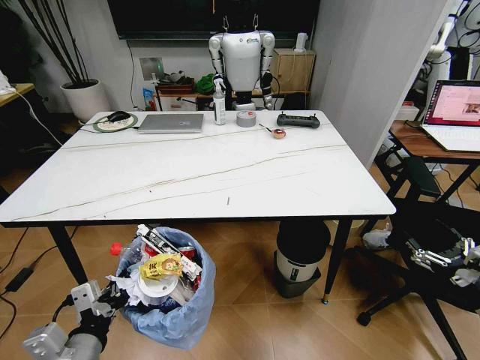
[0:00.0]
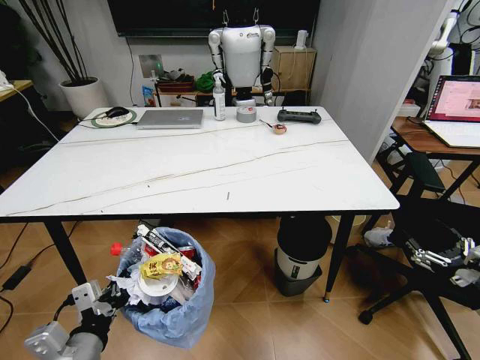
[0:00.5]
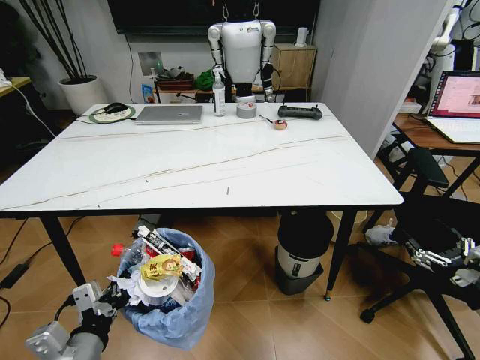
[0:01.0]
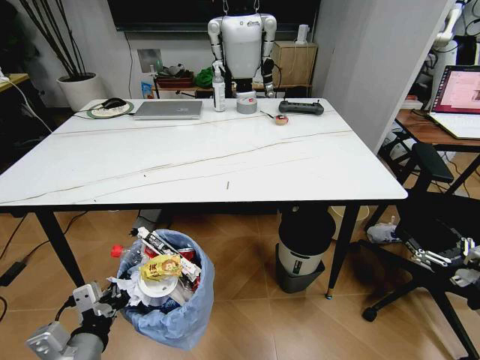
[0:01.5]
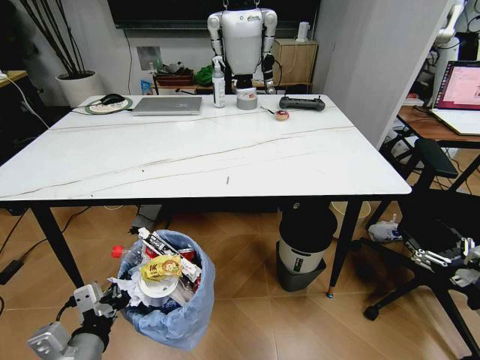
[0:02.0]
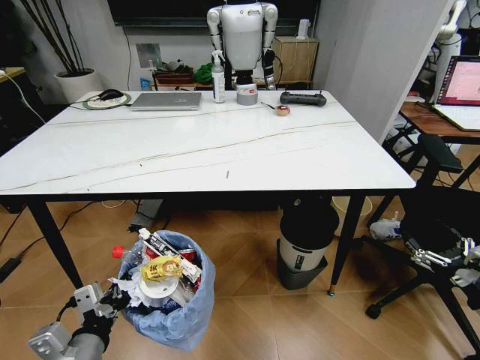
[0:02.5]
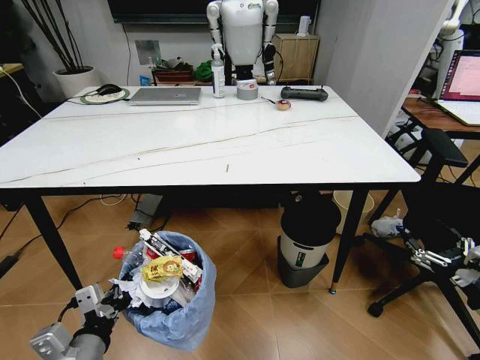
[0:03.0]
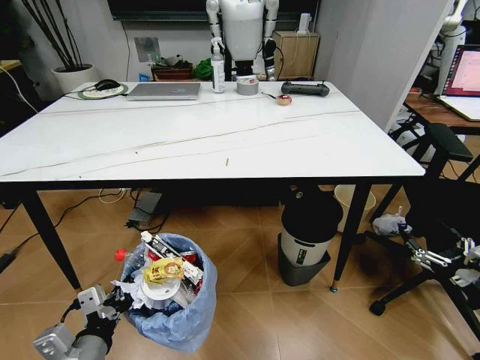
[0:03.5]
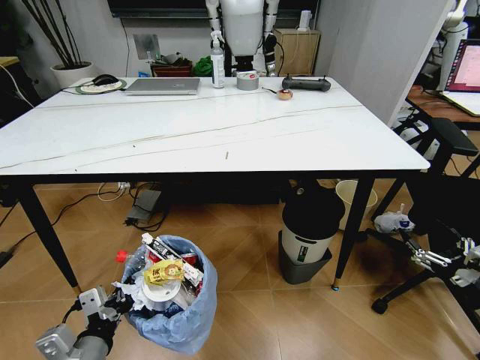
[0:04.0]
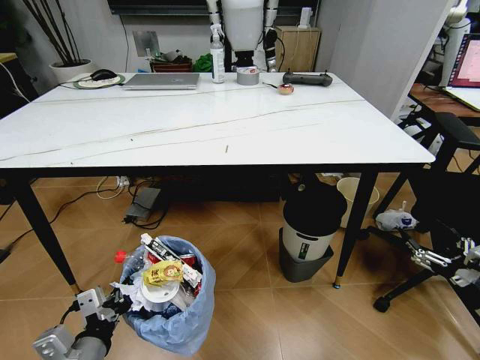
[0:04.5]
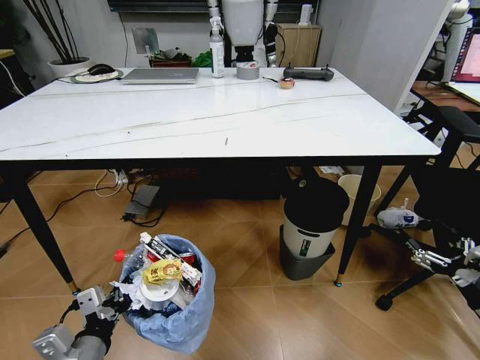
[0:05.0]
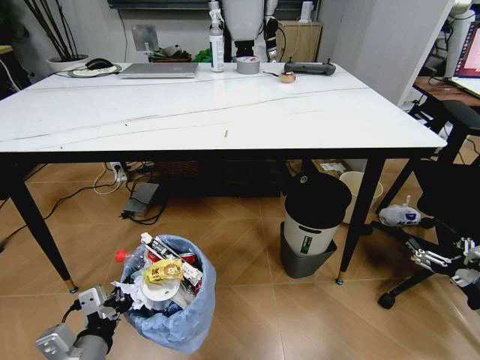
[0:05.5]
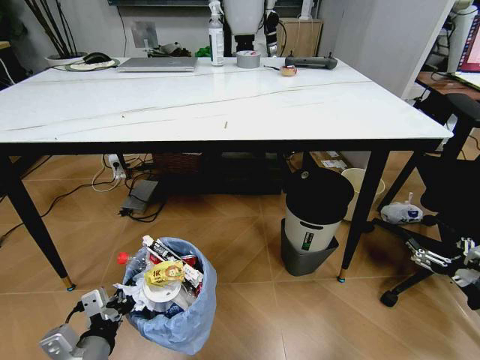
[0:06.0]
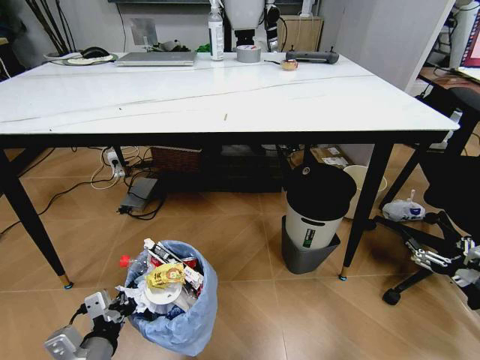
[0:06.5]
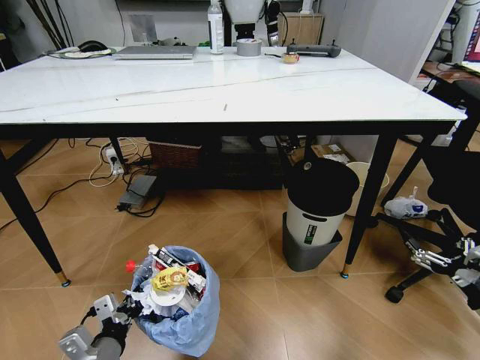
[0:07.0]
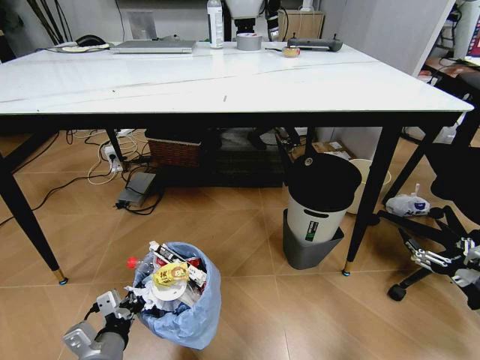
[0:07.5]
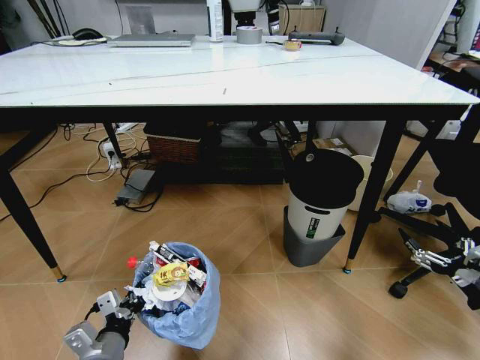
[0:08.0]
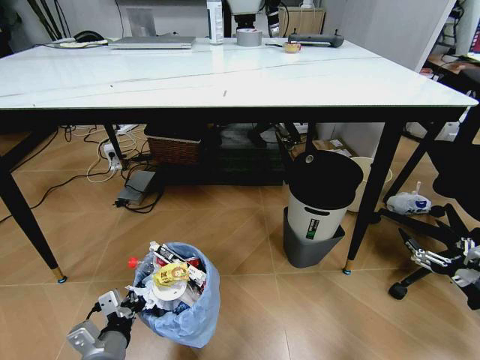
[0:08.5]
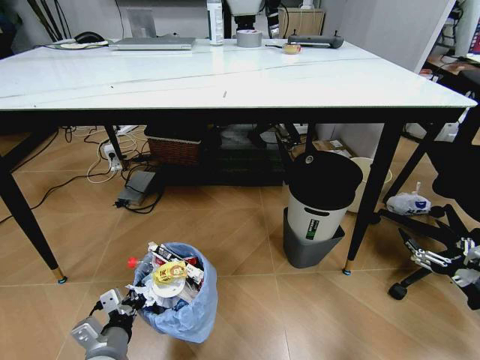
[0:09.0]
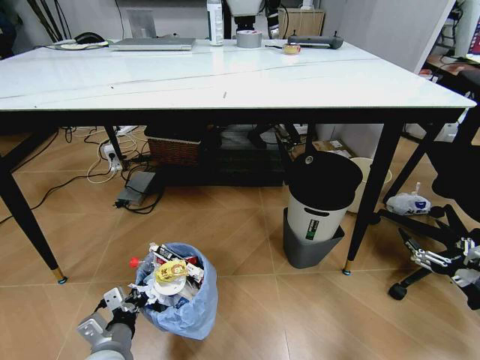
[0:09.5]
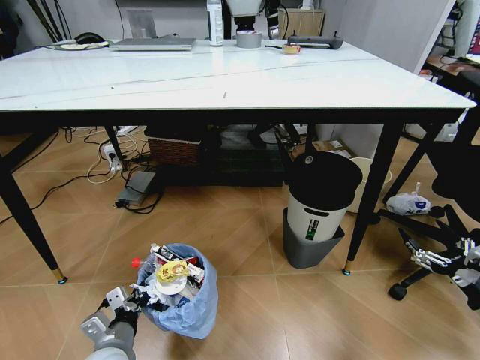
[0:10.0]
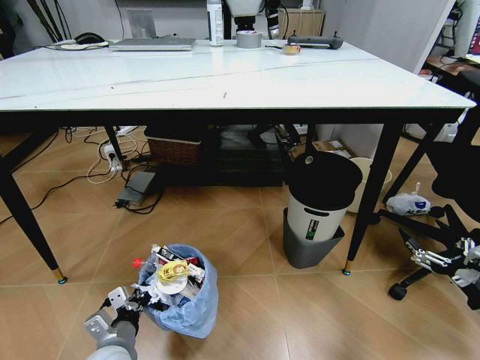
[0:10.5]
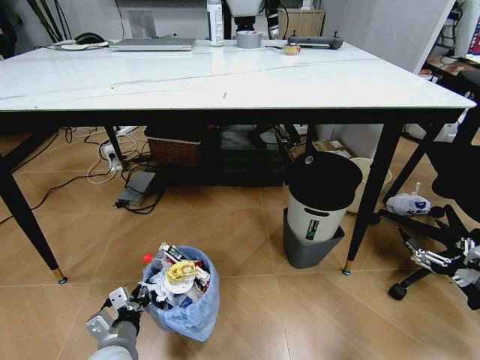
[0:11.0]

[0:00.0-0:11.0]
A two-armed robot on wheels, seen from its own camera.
Task of the whole recording: Pick up the trash bin and place the trash from the table into it.
0:05.5 to 0:07.5: The left gripper is displaced downward by approximately 5 cm.
0:07.5 to 0:09.0: The grippers make only small movements.
0:09.0 to 0:11.0: The grippers stay close to where they were, moving slightly.

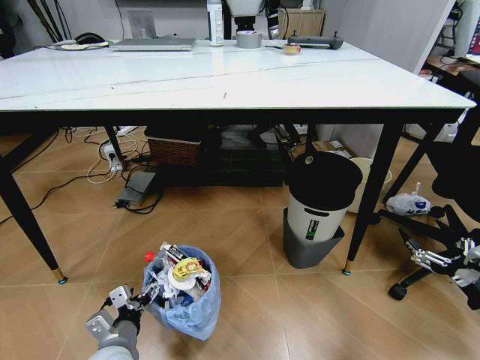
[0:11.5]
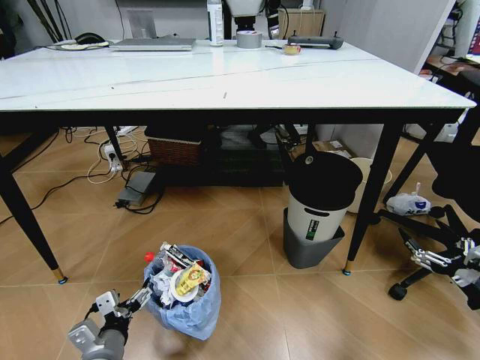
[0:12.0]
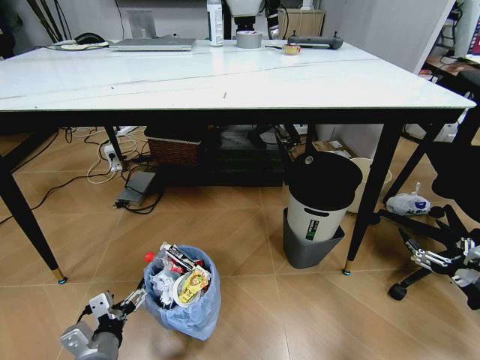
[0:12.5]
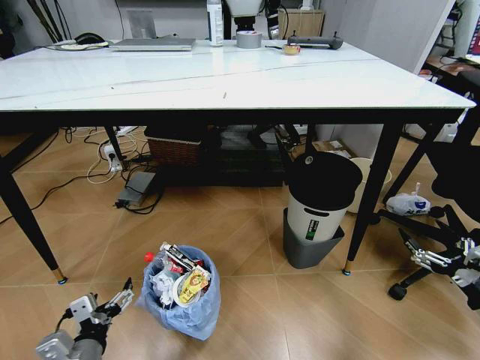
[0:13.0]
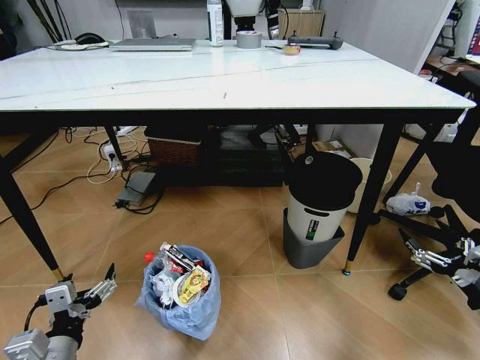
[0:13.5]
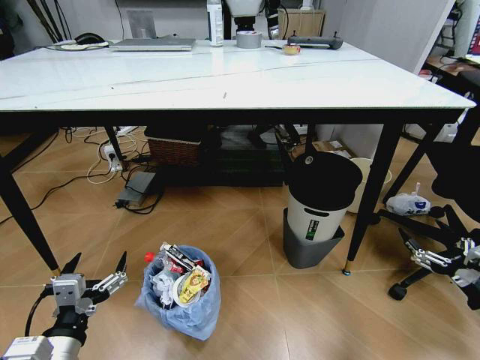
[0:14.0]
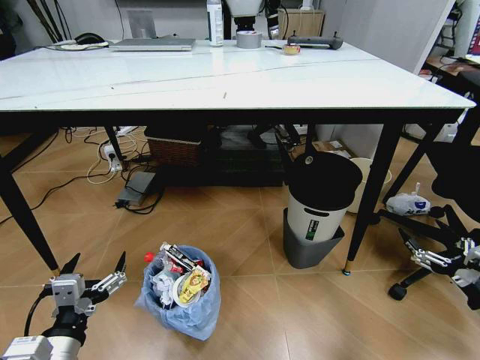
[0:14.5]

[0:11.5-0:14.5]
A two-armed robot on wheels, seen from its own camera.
Task of the whole recording: Pick up the trash bin and place the trash from the table into it.
0:11.5 to 0:13.0: The left gripper is displaced upward and backward by about 10 cm.
0:13.0 to 0:14.5: The left gripper shifts some 5 cm upward.

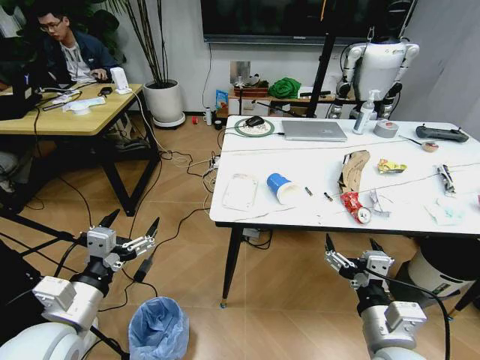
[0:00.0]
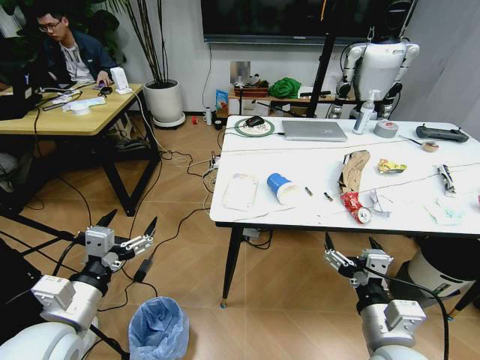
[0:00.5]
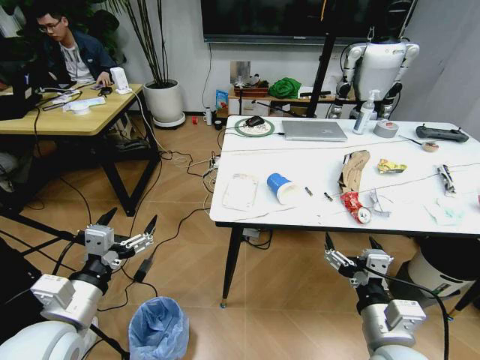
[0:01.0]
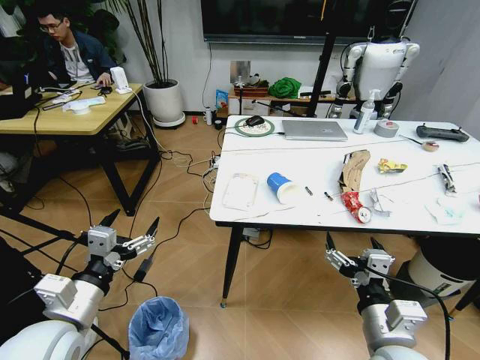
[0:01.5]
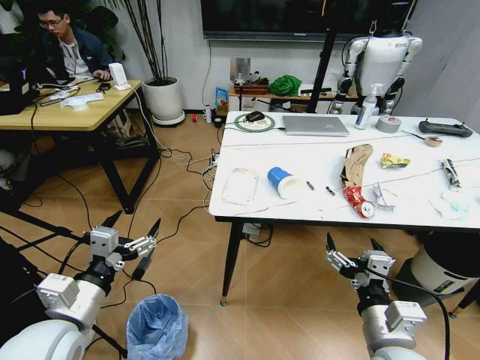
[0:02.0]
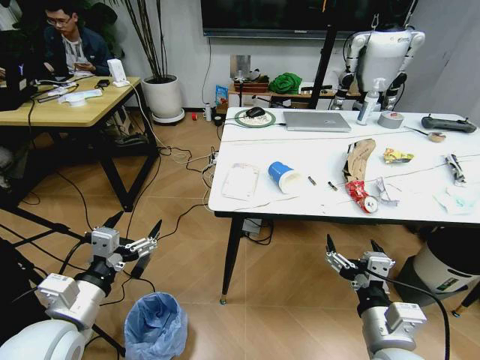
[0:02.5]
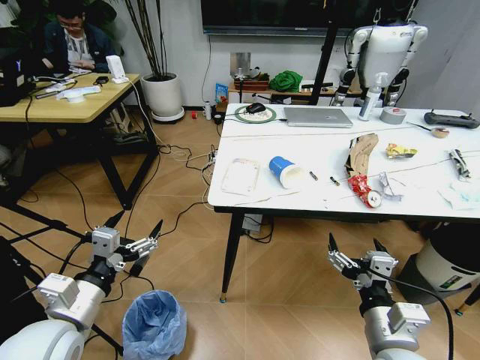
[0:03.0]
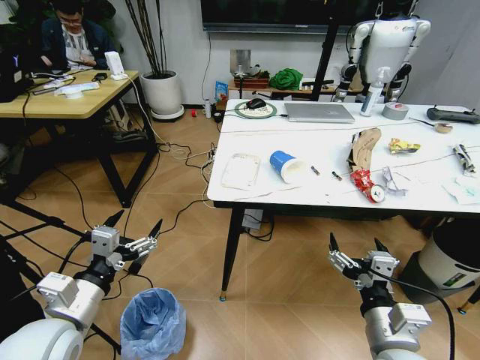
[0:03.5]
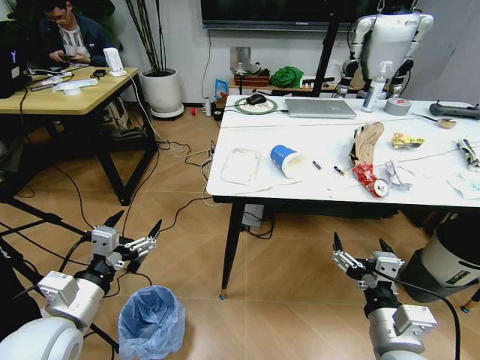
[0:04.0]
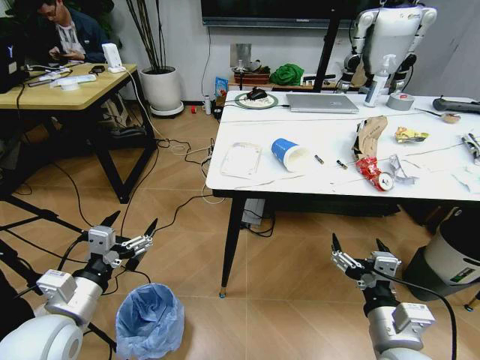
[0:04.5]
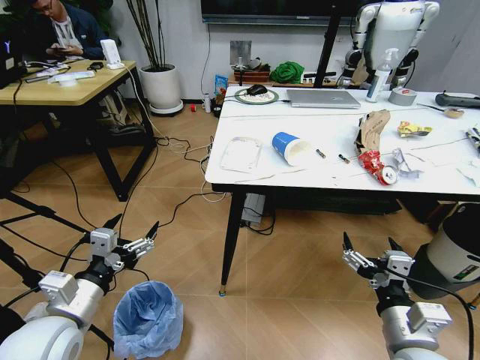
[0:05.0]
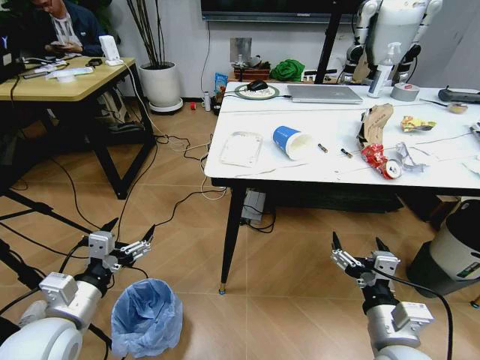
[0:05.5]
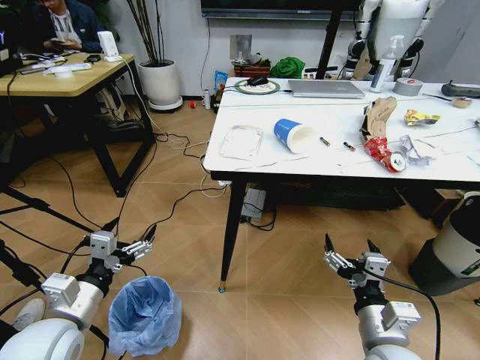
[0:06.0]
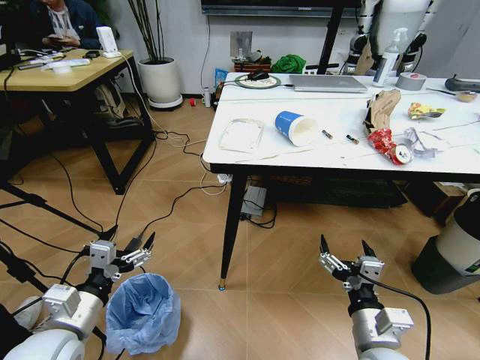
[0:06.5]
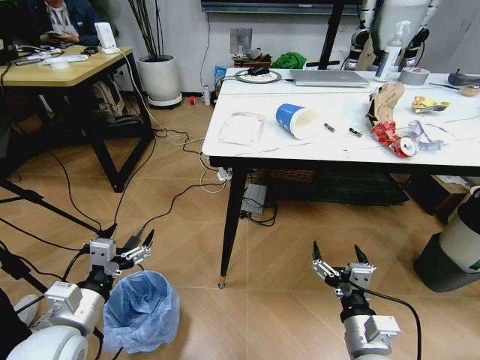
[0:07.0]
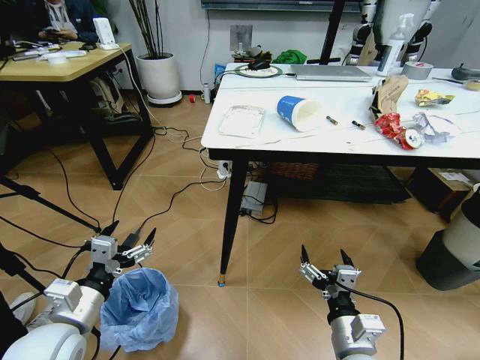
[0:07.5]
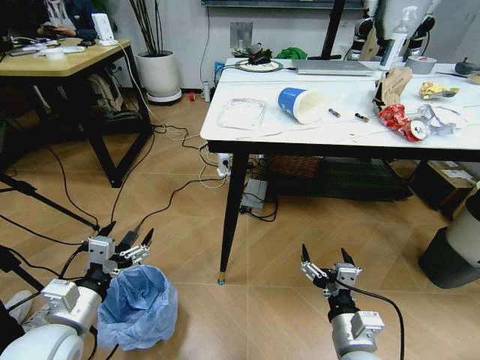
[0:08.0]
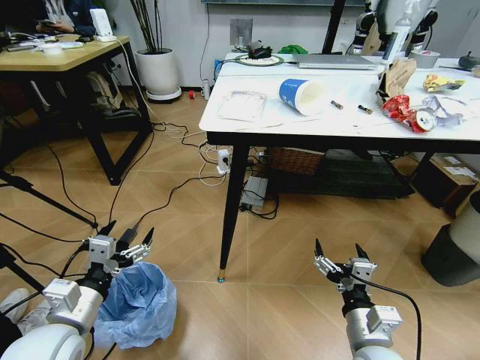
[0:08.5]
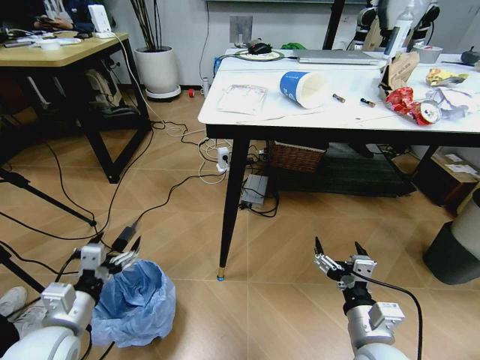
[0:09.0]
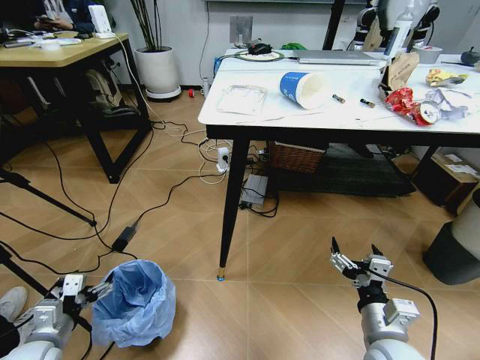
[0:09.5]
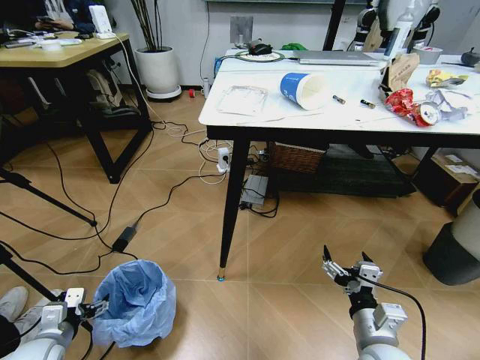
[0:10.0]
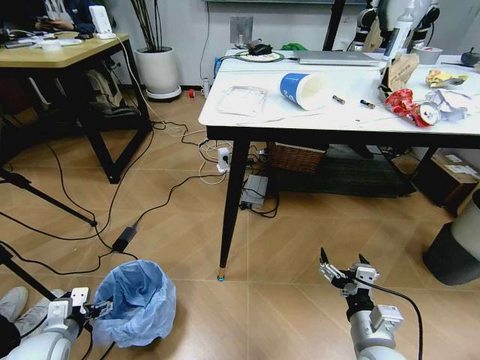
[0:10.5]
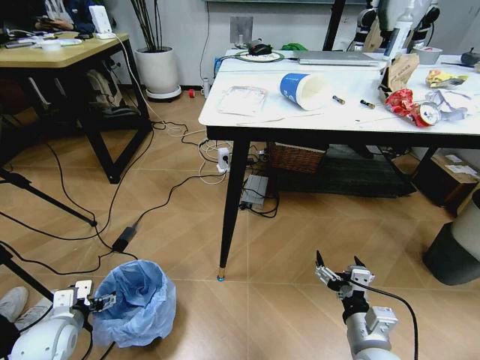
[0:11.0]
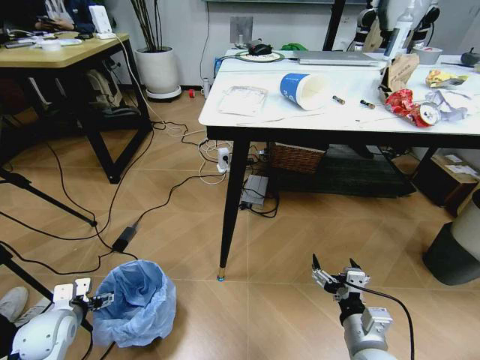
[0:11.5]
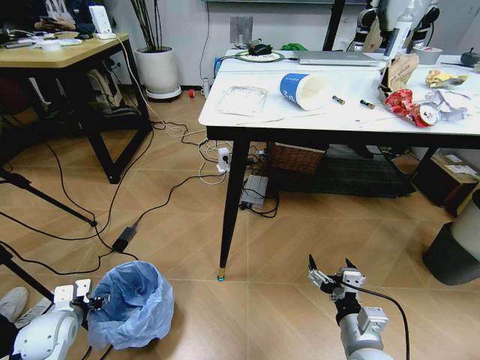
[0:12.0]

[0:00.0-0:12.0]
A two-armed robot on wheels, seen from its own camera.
Task of the whole recording: Pick up the trash bin and place the trash from the table into it.
0:06.0 to 0:08.0: The right gripper changes place by some 5 cm.
0:08.0 to 0:10.0: The left gripper heads downward and to the left, covering about 15 cm.
0:10.0 to 0:12.0: The left gripper travels forward by roughly 5 cm.
